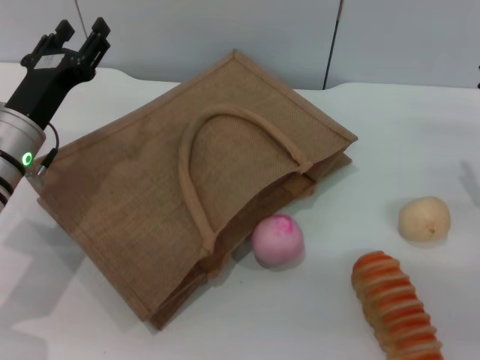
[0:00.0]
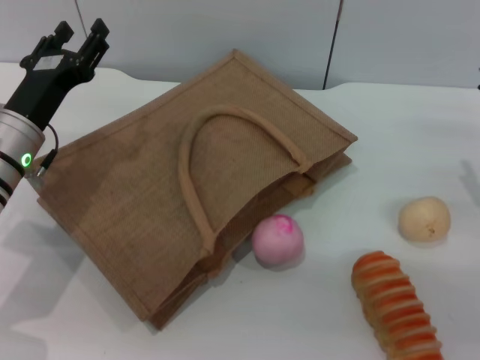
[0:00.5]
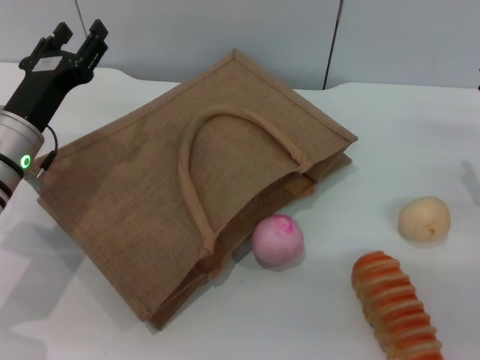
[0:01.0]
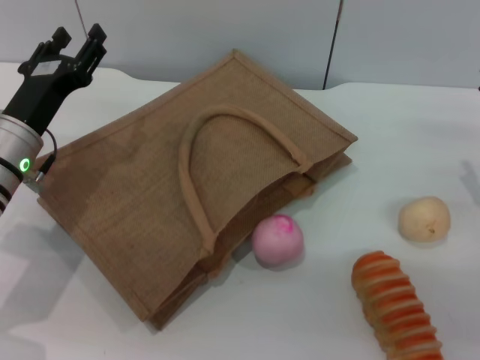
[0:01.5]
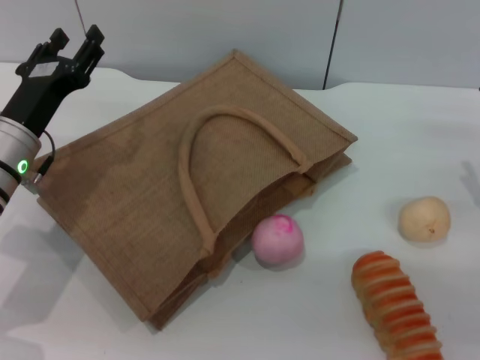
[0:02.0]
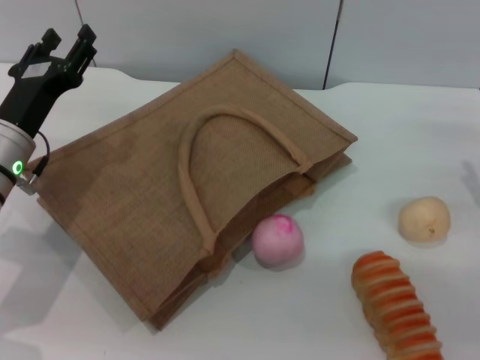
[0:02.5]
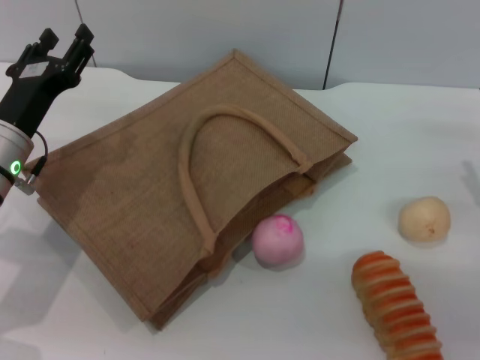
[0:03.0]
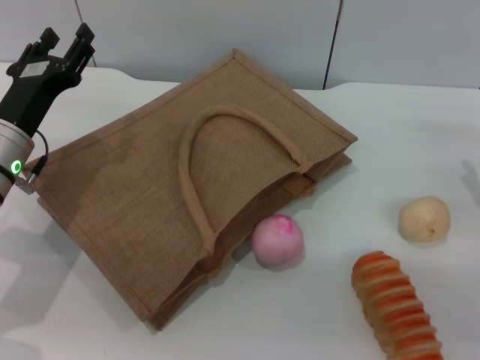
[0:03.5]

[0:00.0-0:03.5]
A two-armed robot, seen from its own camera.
Task of the whole recording: pick up the orange from the table and place it in the brown handbag.
0:00.0 to 0:03.5: Both grippers stay put.
